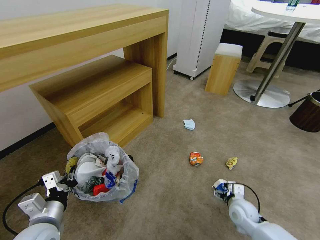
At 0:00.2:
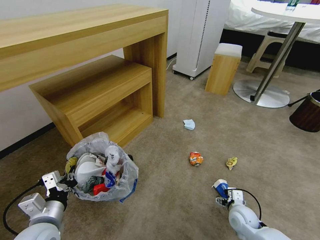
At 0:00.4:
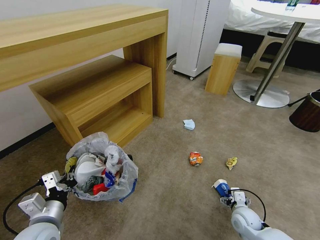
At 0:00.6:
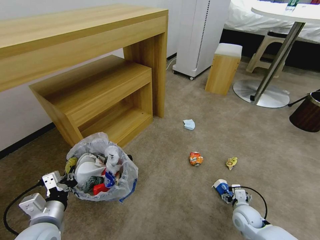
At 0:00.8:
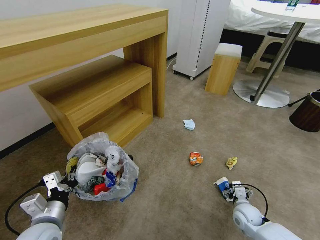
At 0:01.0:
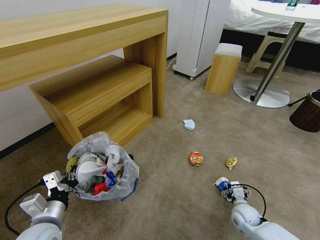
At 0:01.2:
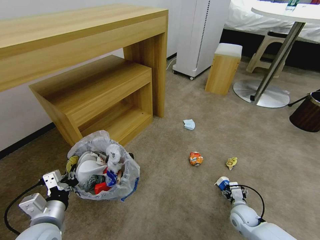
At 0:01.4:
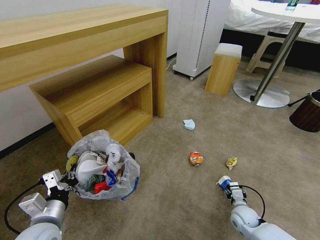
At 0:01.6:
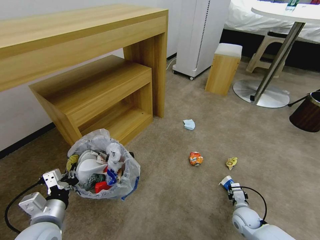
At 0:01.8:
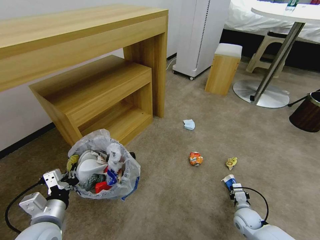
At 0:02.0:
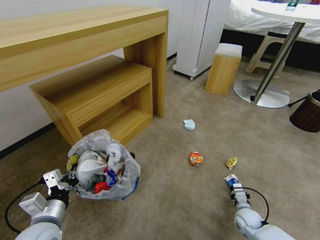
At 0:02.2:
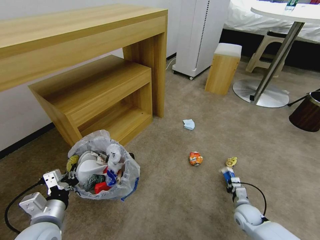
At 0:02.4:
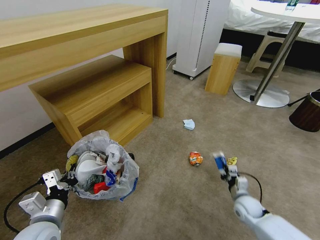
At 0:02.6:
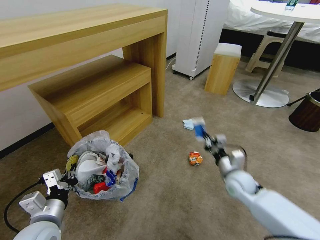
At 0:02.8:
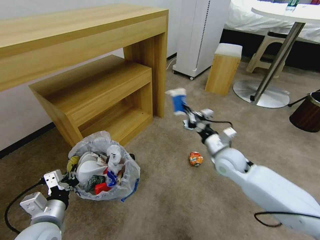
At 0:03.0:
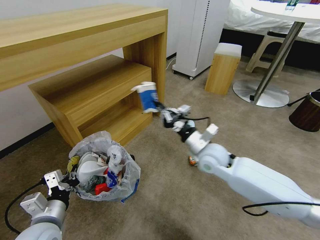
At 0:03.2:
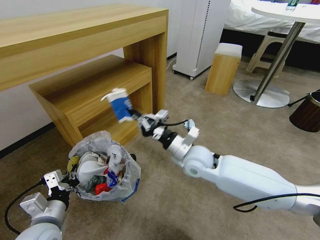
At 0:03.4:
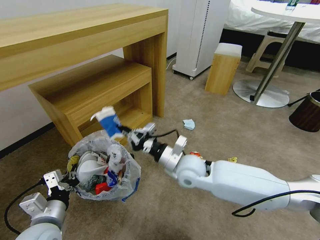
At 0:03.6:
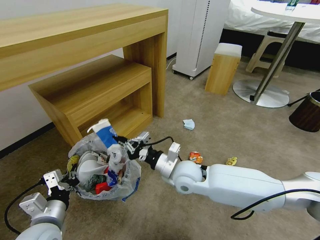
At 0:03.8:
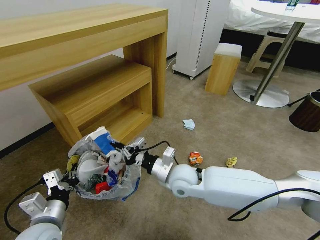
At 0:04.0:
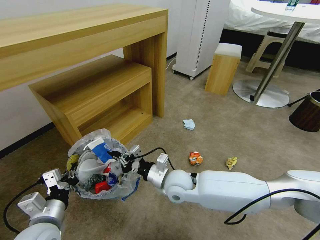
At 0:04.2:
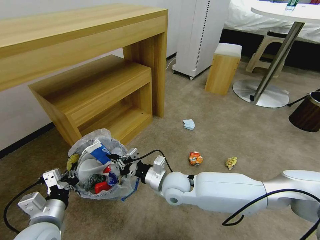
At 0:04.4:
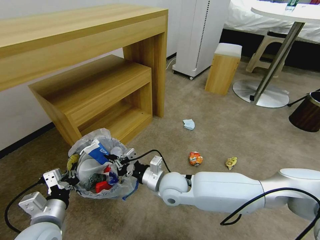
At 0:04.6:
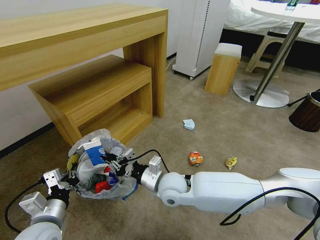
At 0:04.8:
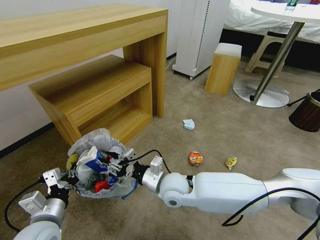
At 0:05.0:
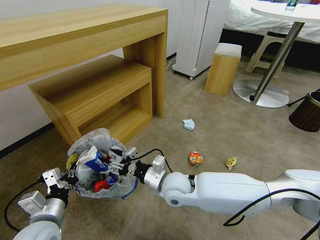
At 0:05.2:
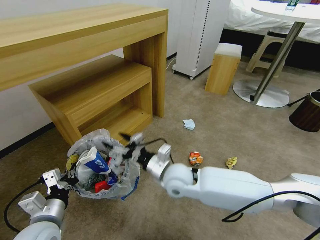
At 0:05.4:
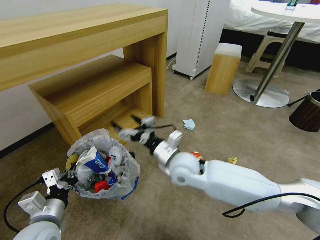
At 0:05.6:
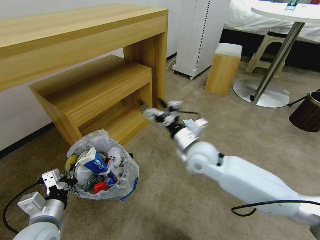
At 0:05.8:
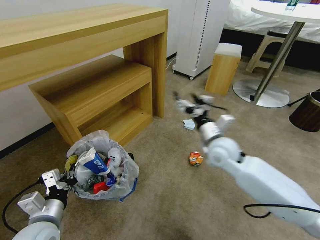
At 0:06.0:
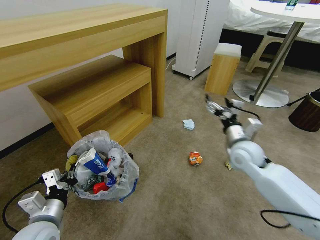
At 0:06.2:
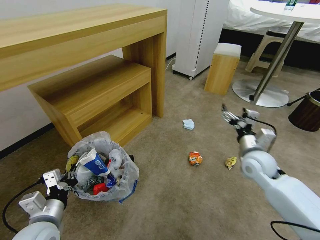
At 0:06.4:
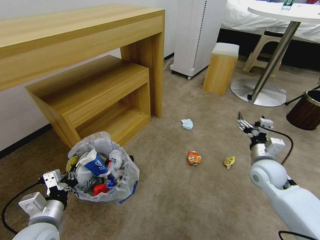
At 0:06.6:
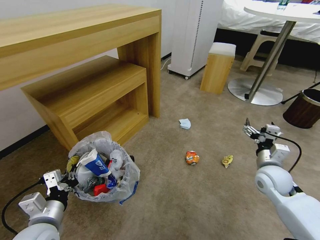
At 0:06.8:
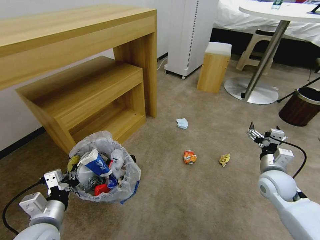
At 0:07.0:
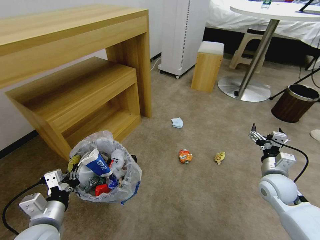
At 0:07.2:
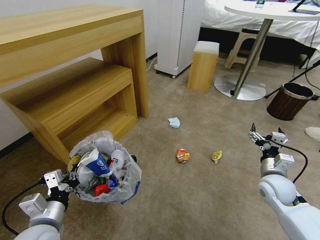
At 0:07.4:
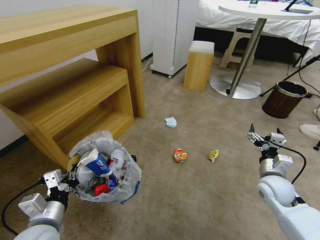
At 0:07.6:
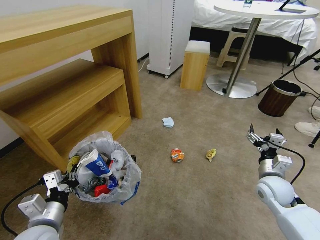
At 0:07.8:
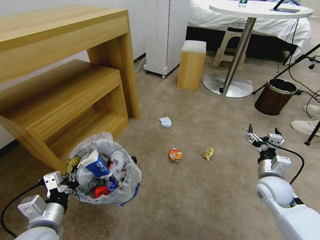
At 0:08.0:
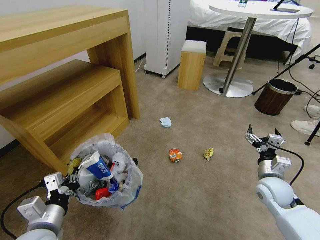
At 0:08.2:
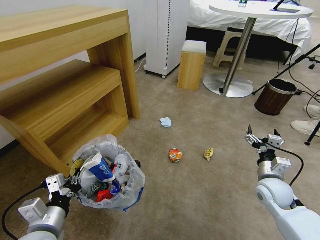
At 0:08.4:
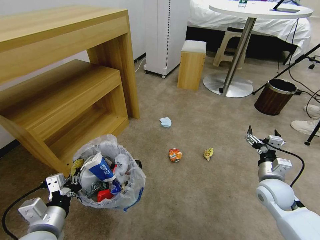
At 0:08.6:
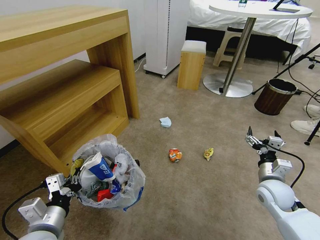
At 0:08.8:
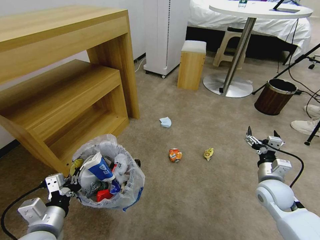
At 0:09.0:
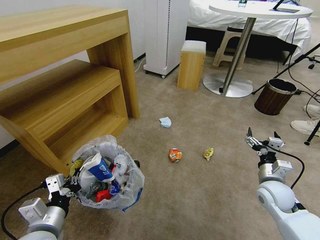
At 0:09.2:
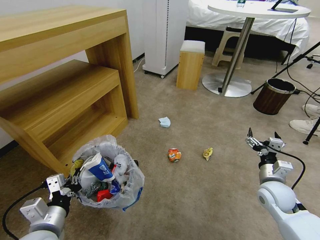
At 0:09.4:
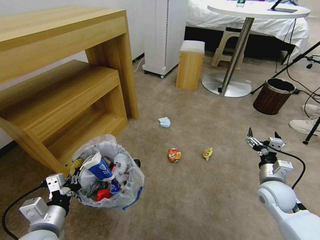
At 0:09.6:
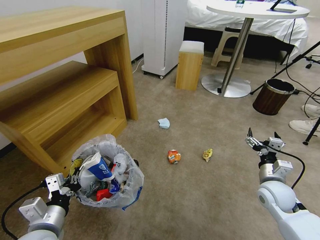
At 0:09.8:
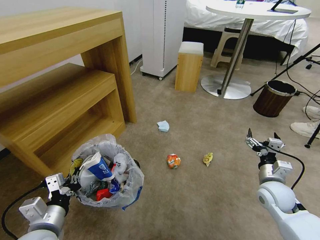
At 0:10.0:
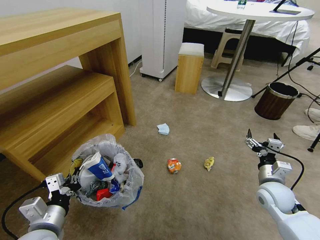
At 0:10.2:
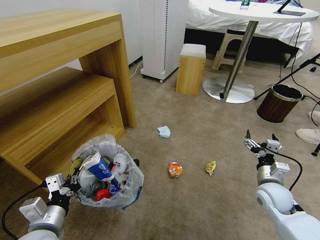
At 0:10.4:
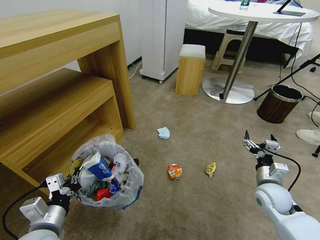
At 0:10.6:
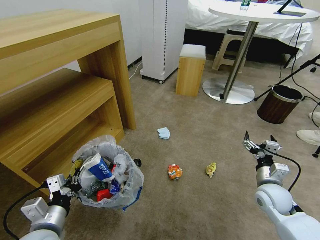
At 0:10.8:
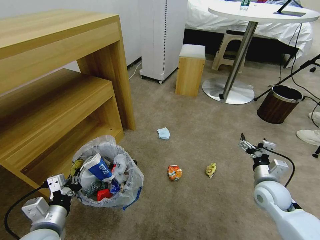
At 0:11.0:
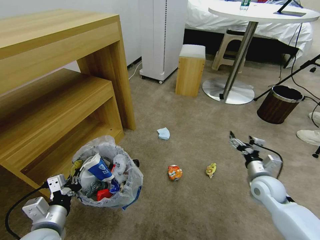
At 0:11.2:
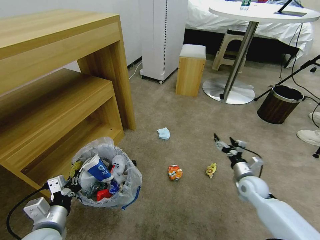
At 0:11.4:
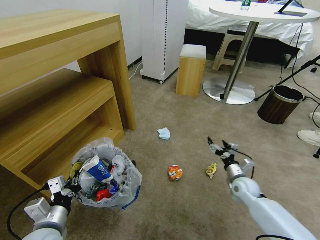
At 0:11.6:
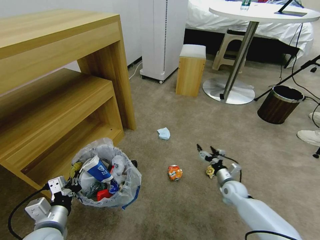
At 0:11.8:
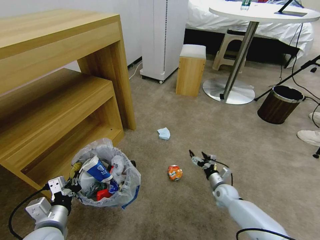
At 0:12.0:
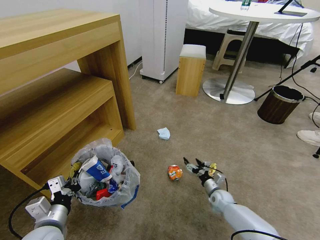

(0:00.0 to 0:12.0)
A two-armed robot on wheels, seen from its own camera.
Task of the whole recording: Pick up the trash bin and place the garbage on the floor into it.
0:00.0 - 0:01.6: The right gripper is displaced downward by some 10 cm, and closes its fingers.
0:01.6 - 0:03.0: The right gripper travels upward, to the left and forward by roughly 35 cm, and closes its fingers.
0:03.0 - 0:04.4: The right gripper heads to the left and backward, covering about 15 cm.
0:04.4 - 0:06.0: The right gripper moves to the right, about 20 cm, and opens up.
0:06.0 - 0:07.6: The right gripper moves to the right, downward and backward, some 15 cm.
0:07.6 - 0:09.0: The grippers stay close to where they were, moving slightly.
0:10.4 - 0:12.0: The right gripper moves downward, about 20 cm.

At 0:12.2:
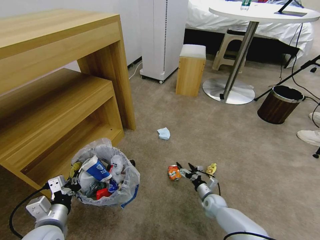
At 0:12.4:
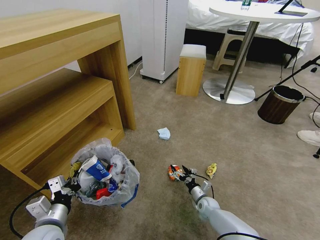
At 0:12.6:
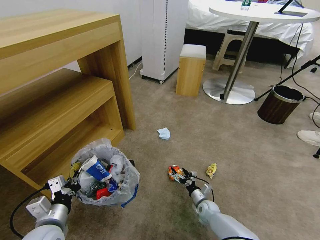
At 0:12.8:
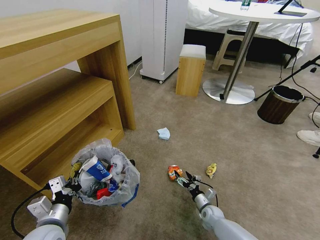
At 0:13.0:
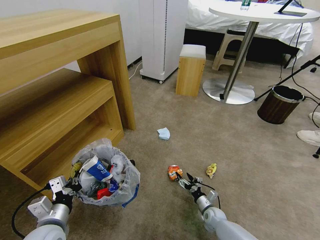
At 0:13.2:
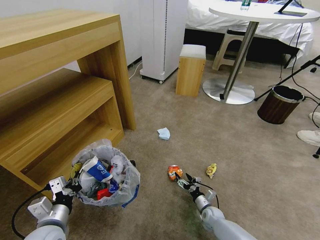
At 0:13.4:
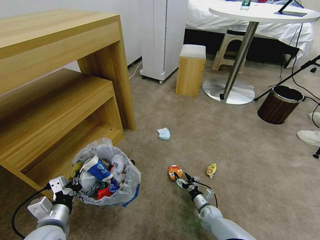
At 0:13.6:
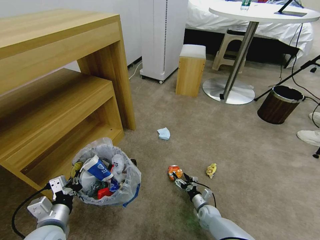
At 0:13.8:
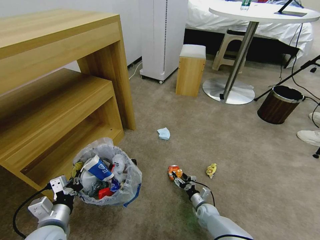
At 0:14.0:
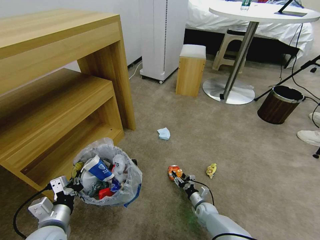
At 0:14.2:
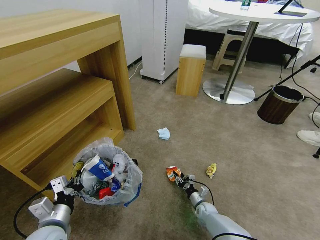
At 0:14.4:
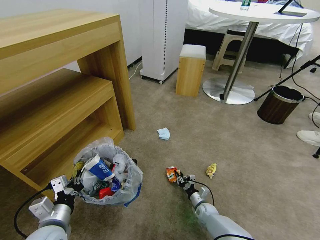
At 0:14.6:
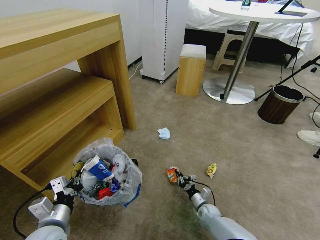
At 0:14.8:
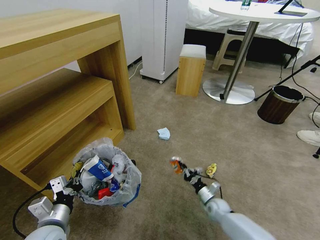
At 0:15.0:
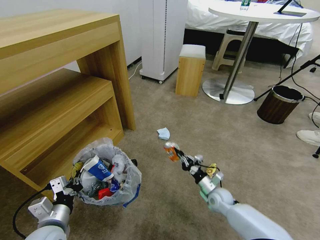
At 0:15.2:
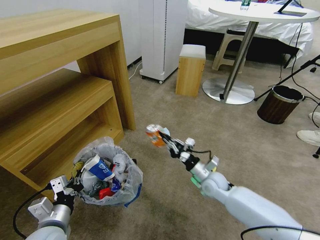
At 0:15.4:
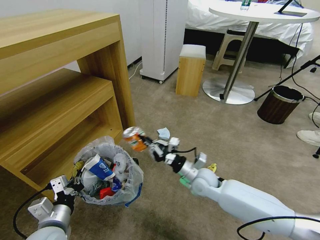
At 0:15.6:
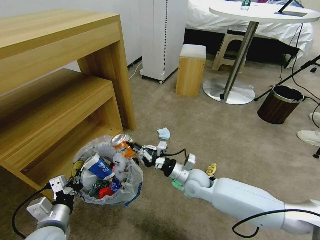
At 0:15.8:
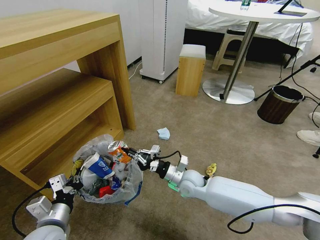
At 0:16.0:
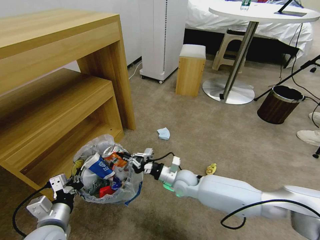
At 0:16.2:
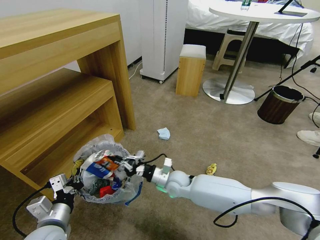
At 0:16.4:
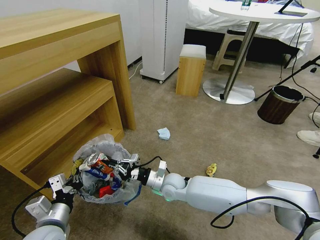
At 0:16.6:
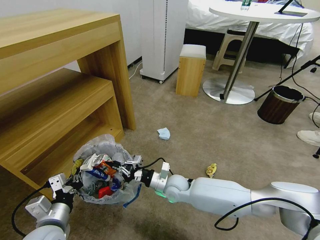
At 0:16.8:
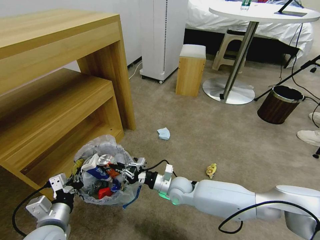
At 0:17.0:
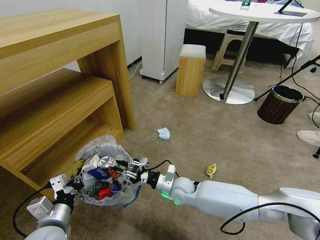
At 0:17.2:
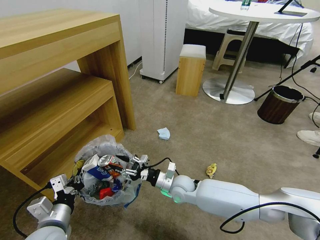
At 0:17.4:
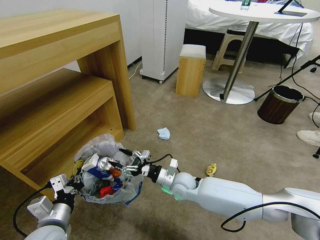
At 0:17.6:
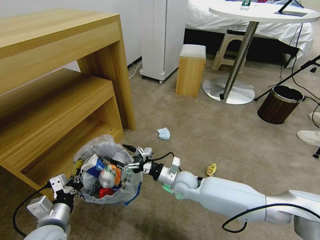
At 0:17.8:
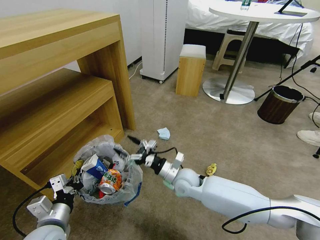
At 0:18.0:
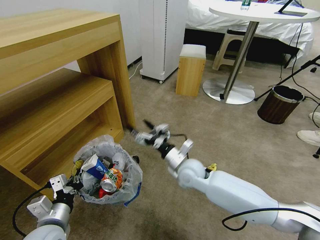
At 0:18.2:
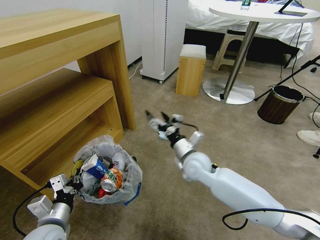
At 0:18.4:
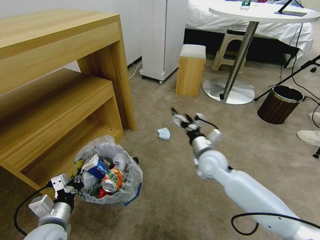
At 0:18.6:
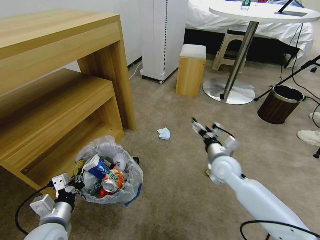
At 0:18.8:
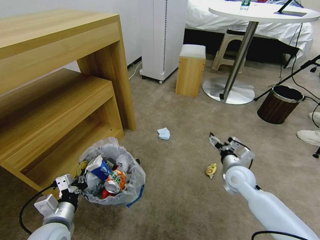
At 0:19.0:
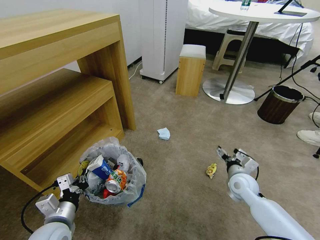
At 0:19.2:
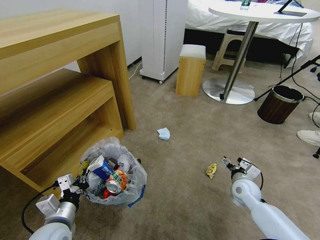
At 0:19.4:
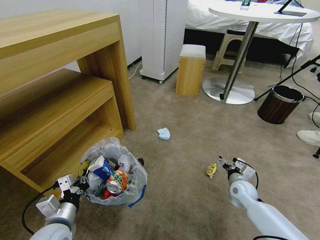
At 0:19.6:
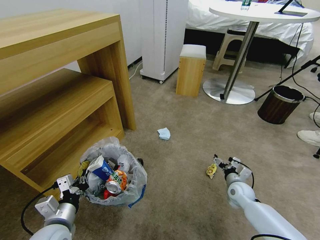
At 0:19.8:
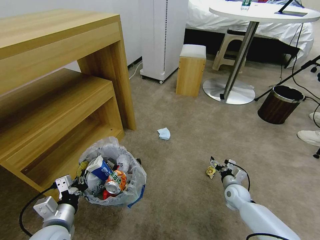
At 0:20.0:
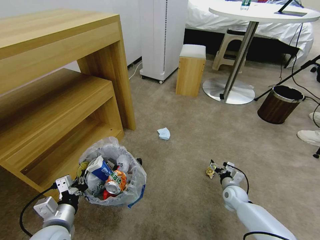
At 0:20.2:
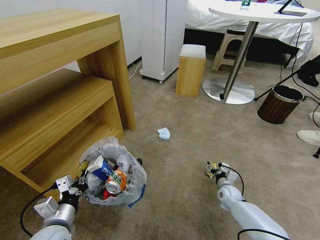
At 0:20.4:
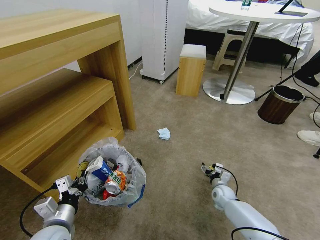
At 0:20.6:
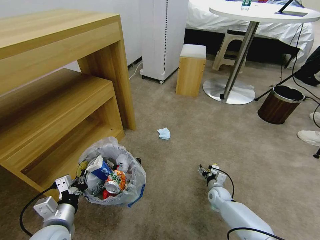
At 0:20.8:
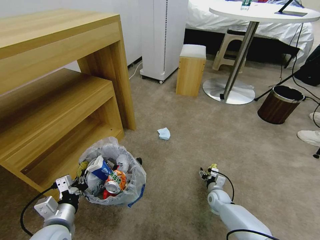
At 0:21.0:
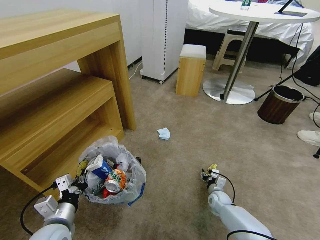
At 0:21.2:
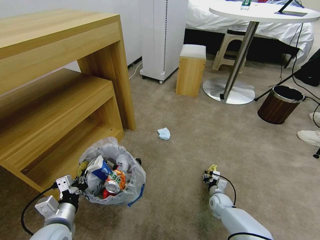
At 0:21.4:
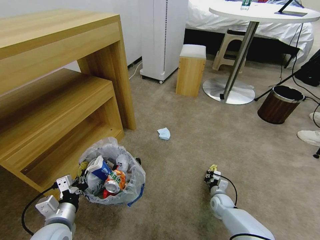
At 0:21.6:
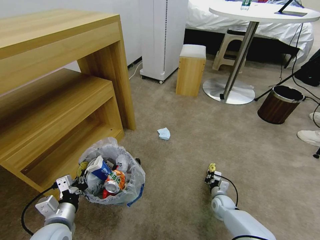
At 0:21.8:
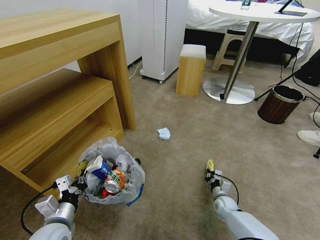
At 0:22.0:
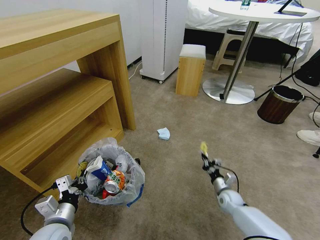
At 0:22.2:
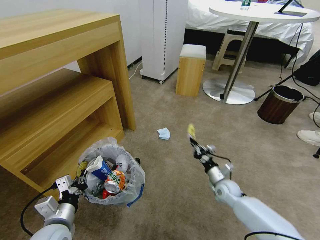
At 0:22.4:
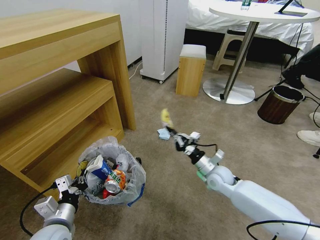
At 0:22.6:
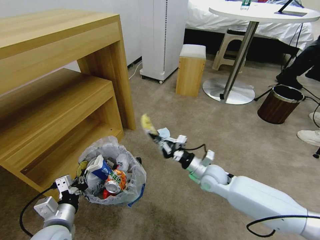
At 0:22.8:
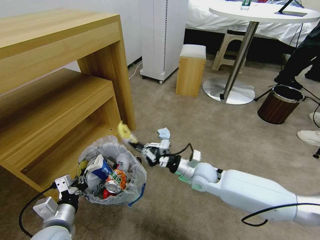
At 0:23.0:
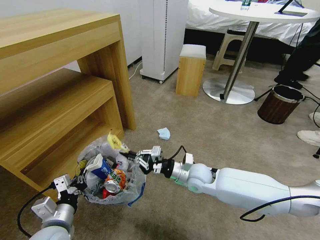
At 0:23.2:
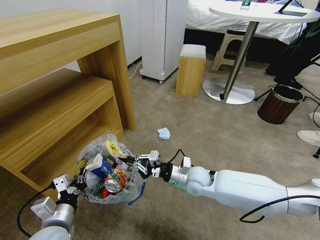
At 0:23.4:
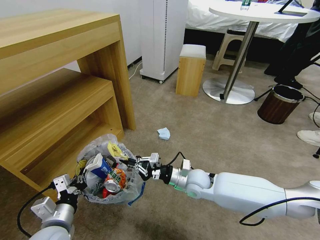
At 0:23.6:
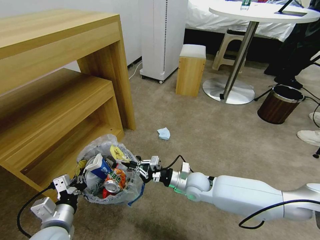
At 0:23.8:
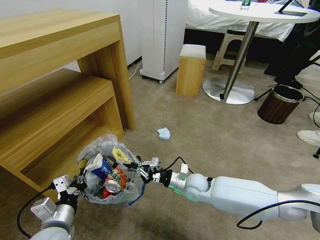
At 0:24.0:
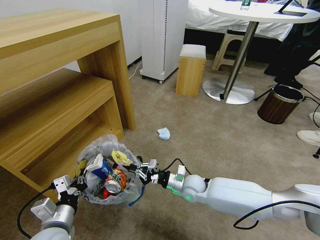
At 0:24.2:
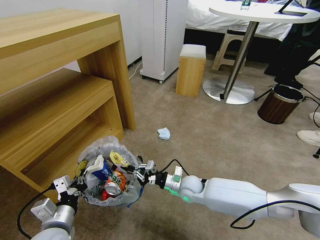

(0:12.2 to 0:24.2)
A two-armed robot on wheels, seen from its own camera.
Task of the whole recording: Pick up the trash bin and place the garbage on the floor into it.
0:12.2 - 0:13.8: The right gripper moves downward, roughly 5 cm.
0:13.8 - 0:15.2: The right gripper heads upward, covering about 25 cm, and closes.
0:15.2 - 0:16.6: The right gripper goes approximately 15 cm to the left.
0:16.6 - 0:18.2: The right gripper travels upward and to the right by approximately 15 cm, and opens its fingers.
0:18.2 - 0:19.8: The right gripper moves downward and to the right, about 30 cm.
0:19.8 - 0:21.2: The right gripper shifts roughly 10 cm downward, and closes up.
0:21.2 - 0:22.6: The right gripper moves upward, some 25 cm, and closes up.
0:22.6 - 0:24.2: The right gripper shifts roughly 10 cm to the left and downward.
